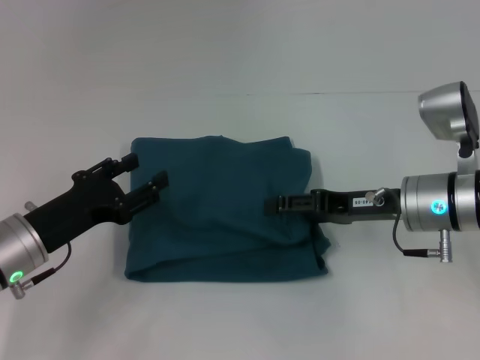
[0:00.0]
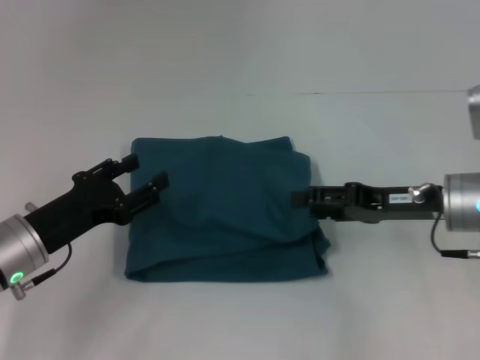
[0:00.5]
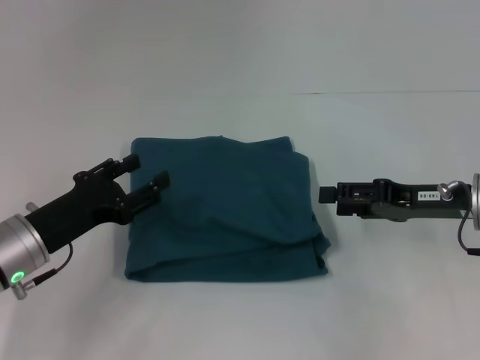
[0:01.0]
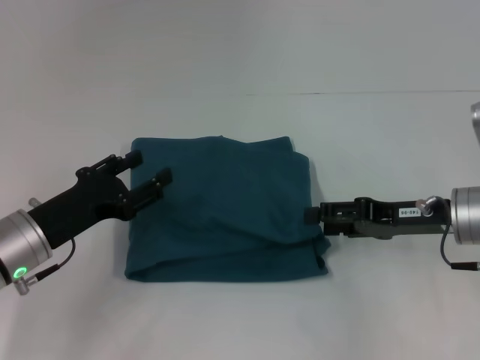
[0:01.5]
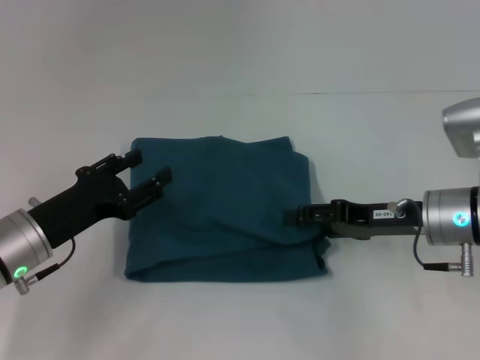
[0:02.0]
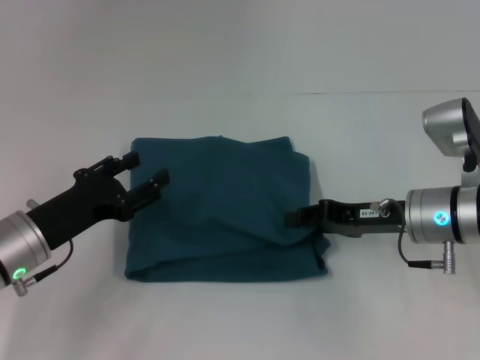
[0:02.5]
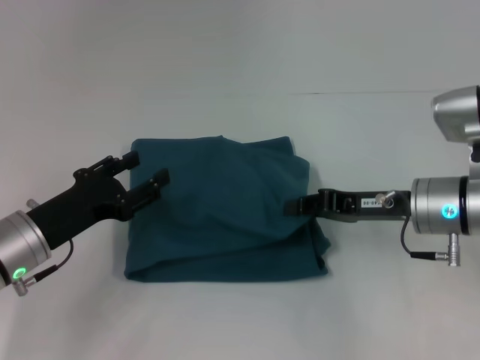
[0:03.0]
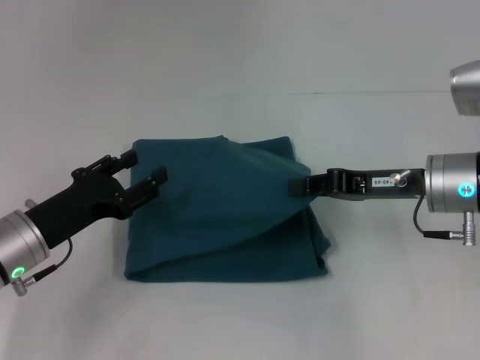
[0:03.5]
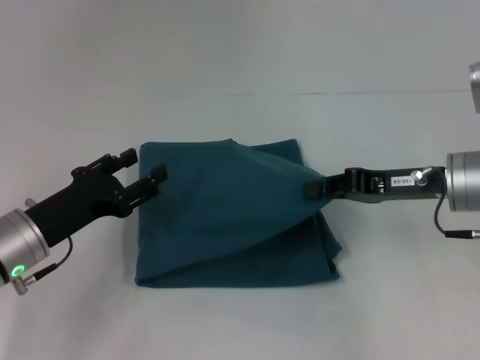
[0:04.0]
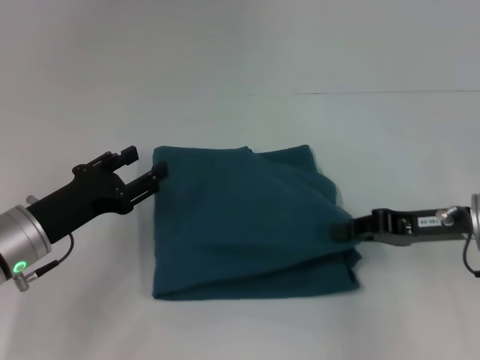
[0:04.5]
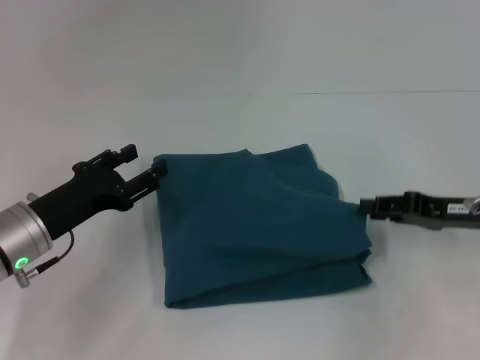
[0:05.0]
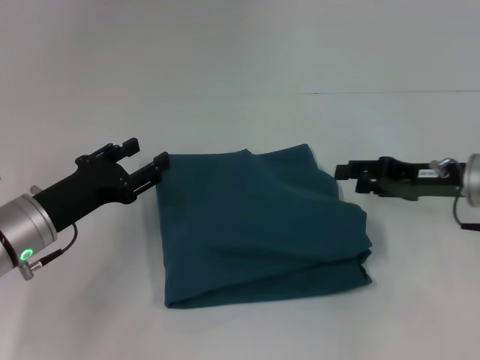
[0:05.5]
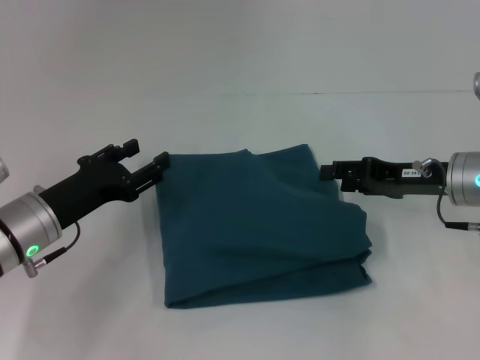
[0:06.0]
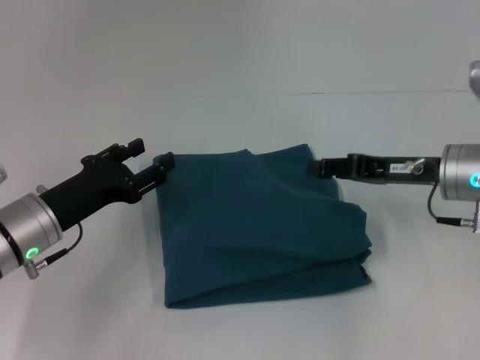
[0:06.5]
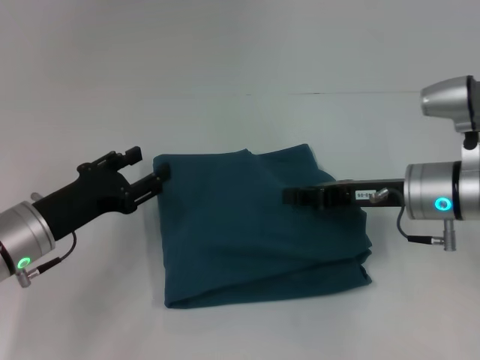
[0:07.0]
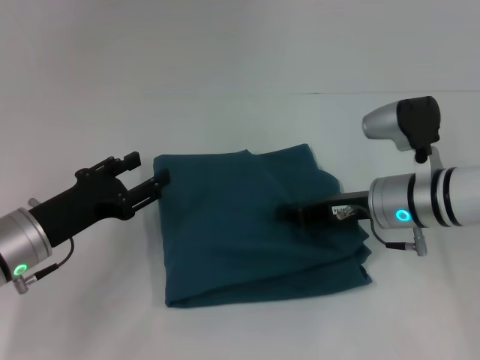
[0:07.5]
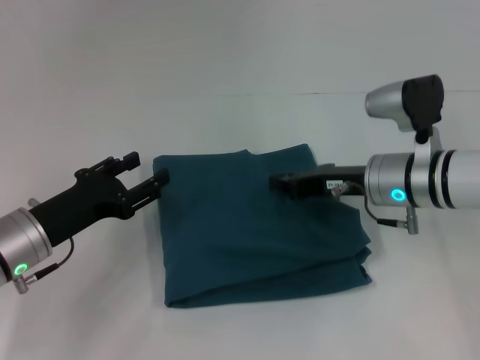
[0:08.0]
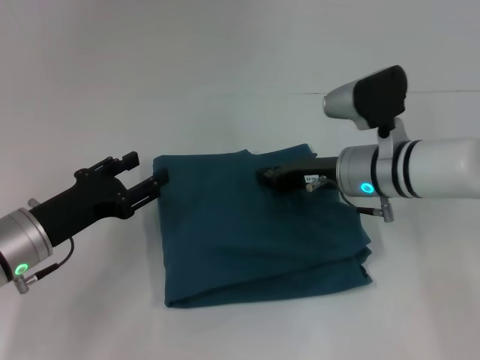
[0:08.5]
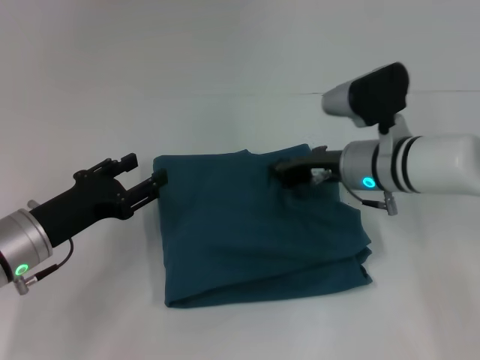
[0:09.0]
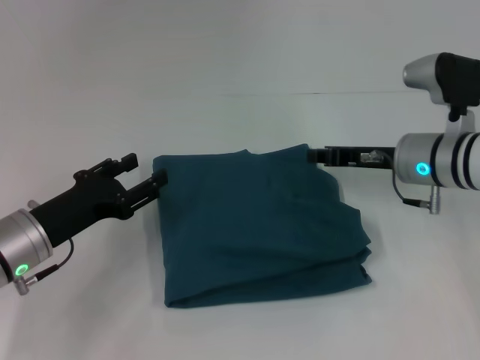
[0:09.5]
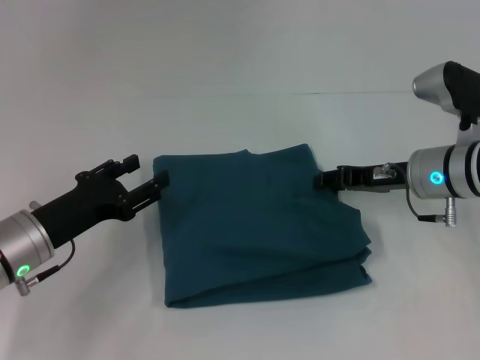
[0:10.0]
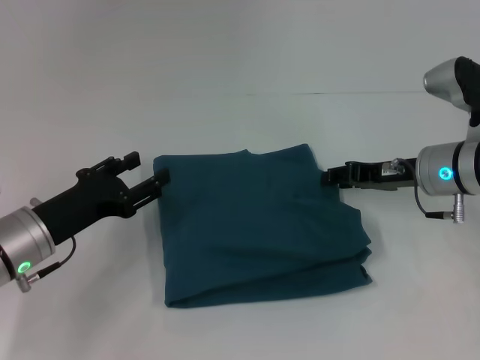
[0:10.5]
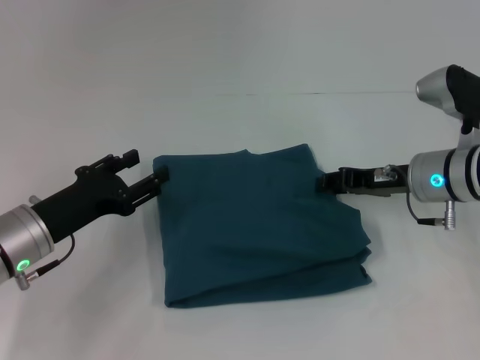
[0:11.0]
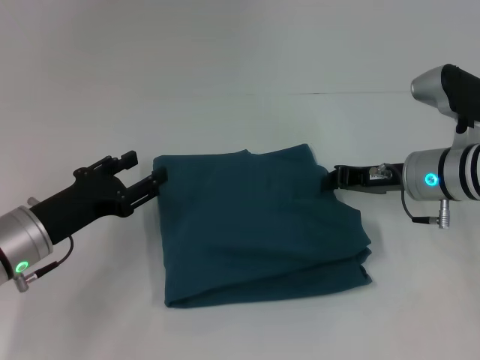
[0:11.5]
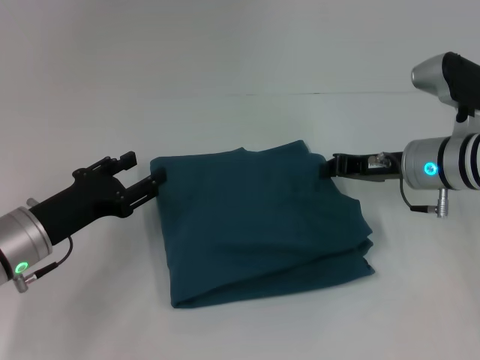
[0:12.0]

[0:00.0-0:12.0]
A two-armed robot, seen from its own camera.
0:02.0 to 0:04.0: The right gripper closes its fingers.
0:04.0 to 0:06.0: The right gripper opens.
0:06.0 to 0:08.0: The right gripper is displaced to the left by approximately 10 cm, and closes its fingers.
0:08.0 to 0:10.0: The right gripper opens its fingers.
0:10.0 to 0:12.0: The right gripper closes up.

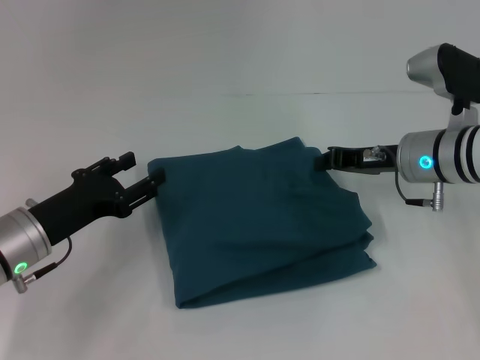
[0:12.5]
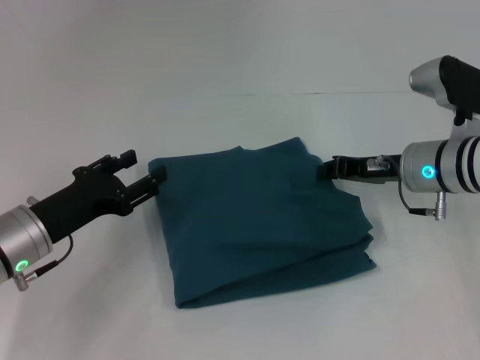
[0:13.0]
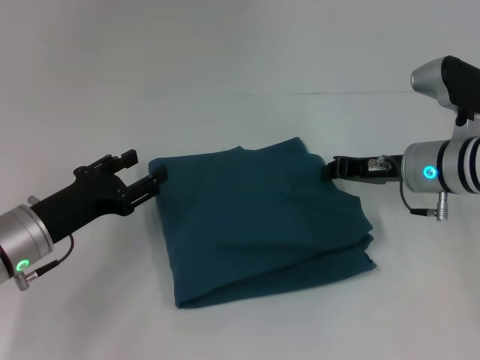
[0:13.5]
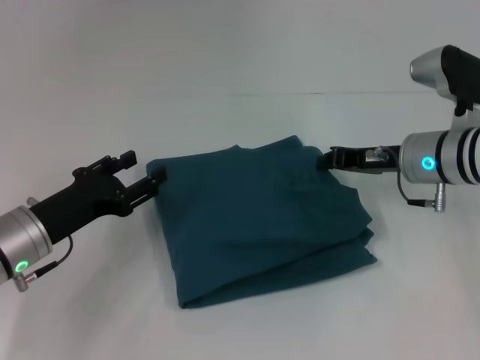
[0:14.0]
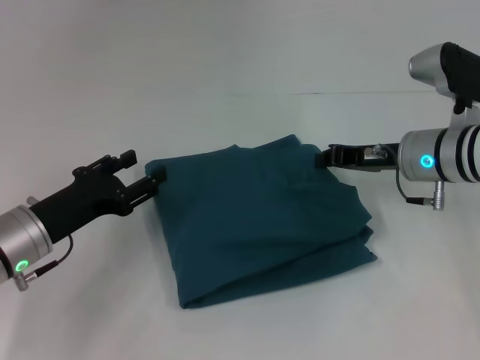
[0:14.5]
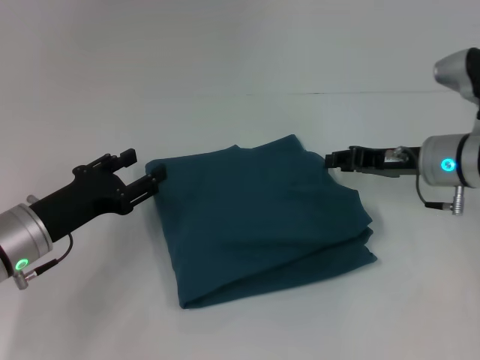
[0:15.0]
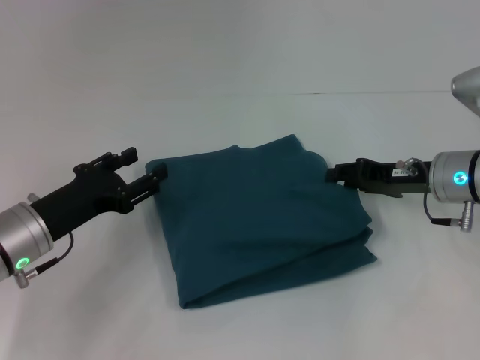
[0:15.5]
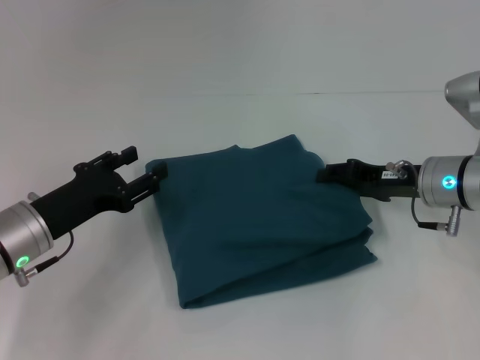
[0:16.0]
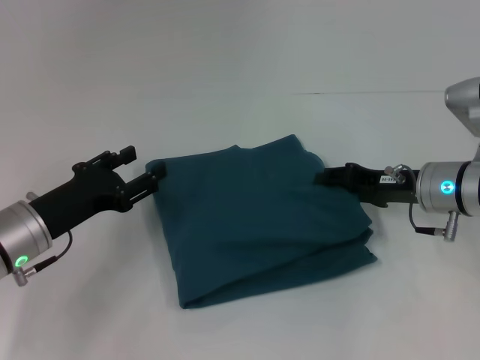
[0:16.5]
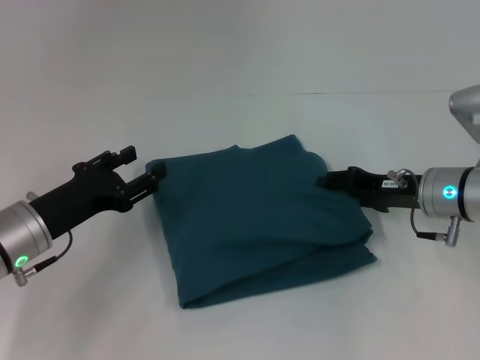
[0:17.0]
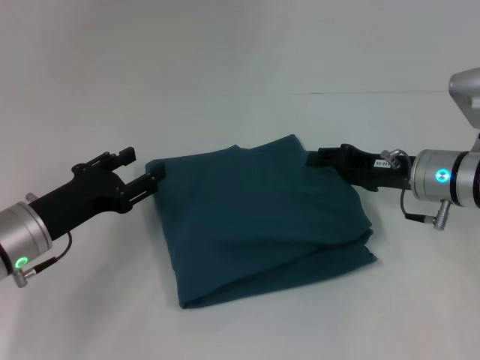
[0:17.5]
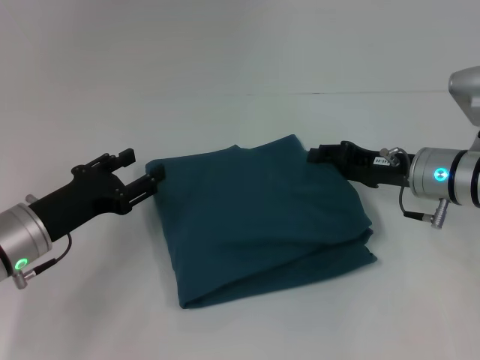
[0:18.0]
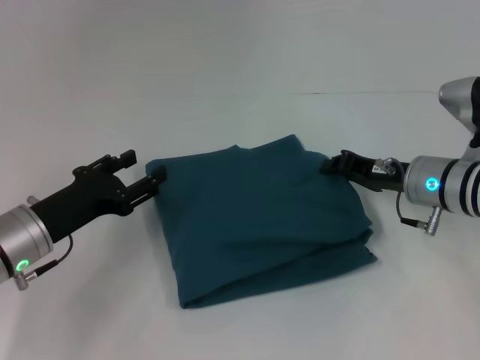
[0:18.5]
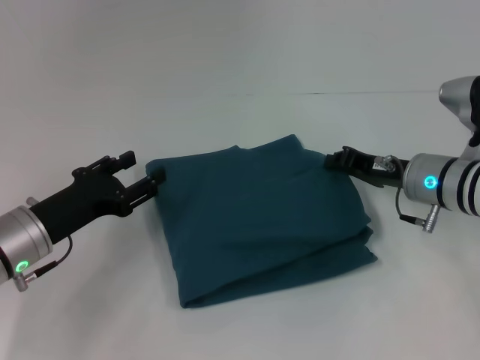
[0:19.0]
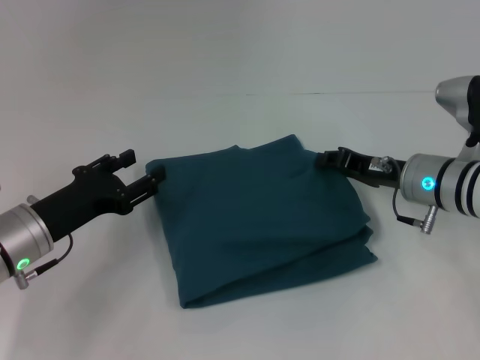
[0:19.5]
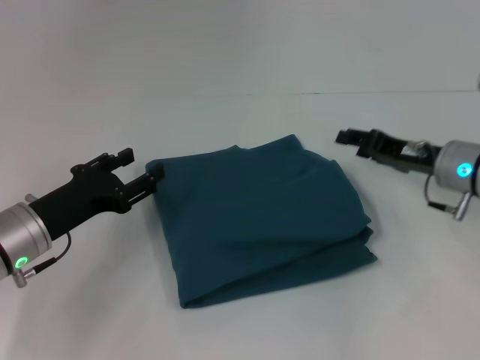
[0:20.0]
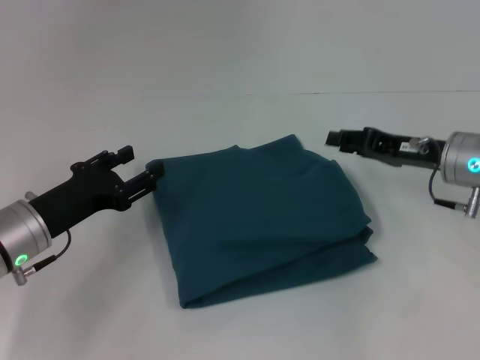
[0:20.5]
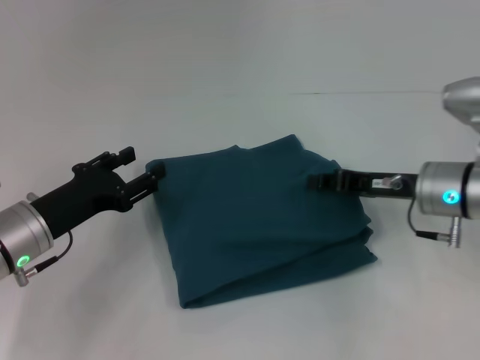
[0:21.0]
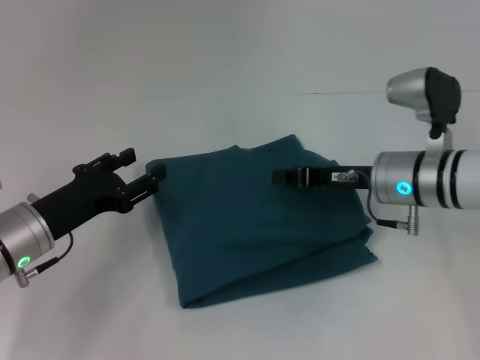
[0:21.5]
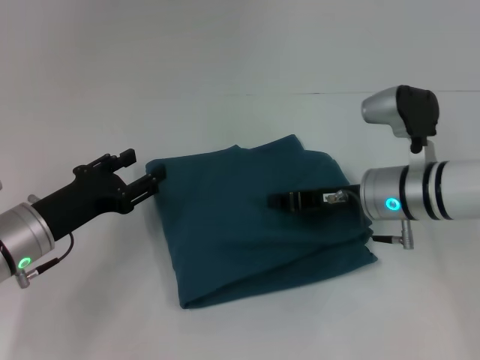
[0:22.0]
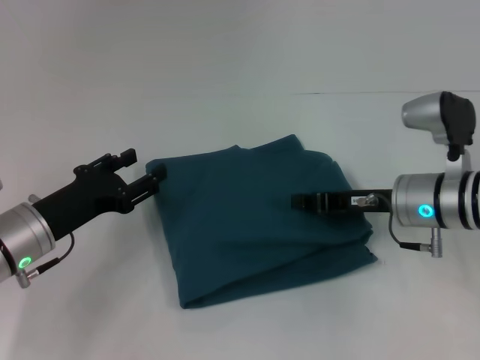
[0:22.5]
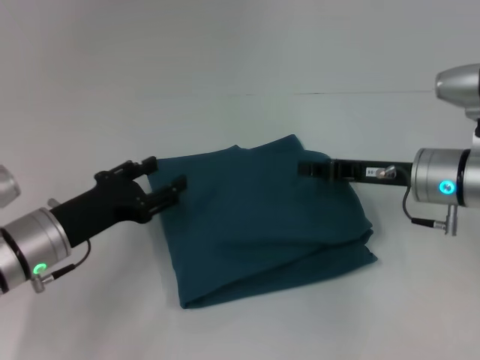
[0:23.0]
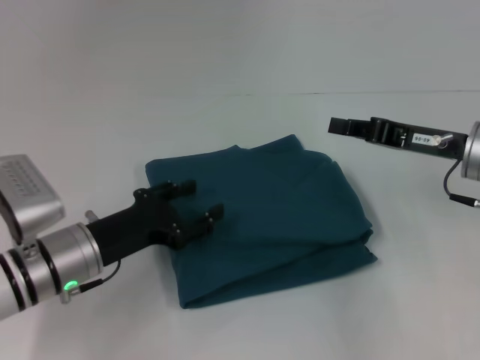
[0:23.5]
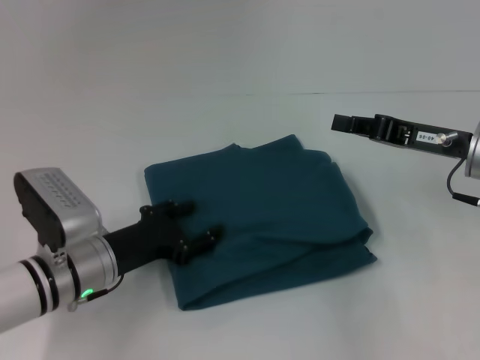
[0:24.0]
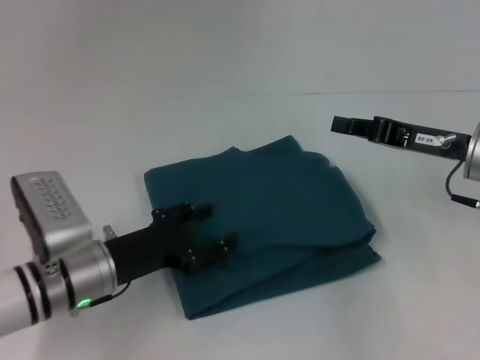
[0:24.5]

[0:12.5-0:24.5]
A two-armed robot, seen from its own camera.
0:12.5 to 0:14.5: Neither gripper changes place.
0:14.5 to 0:16.5: The right gripper opens.
0:16.5 to 0:18.5: The right gripper closes.
0:18.5 to 0:20.5: The right gripper opens up.
0:20.5 to 0:22.5: The right gripper changes place by about 5 cm, and closes.
0:22.5 to 0:24.5: The grippers both shift to the right by roughly 5 cm.

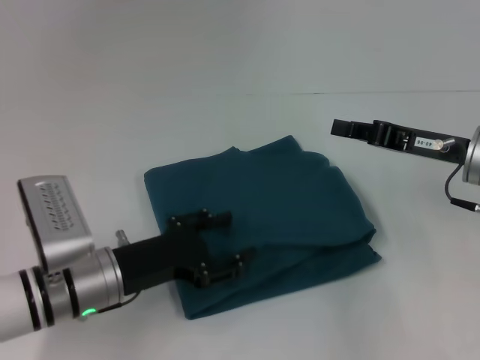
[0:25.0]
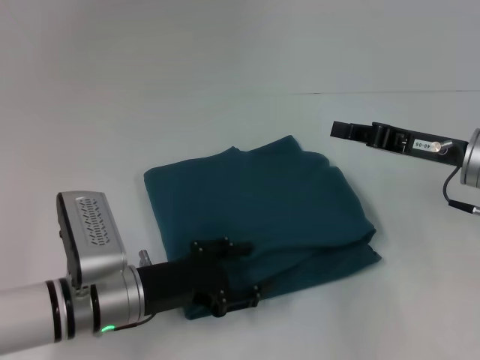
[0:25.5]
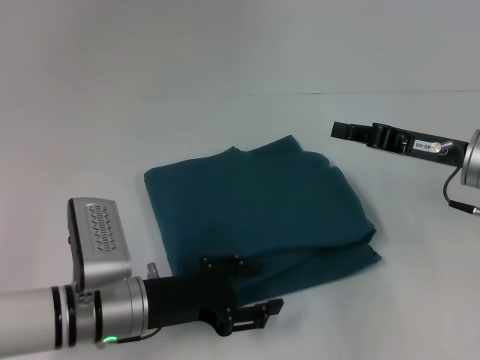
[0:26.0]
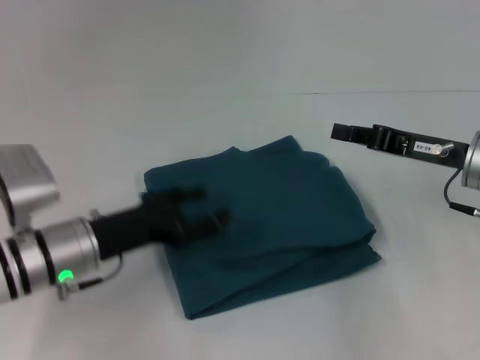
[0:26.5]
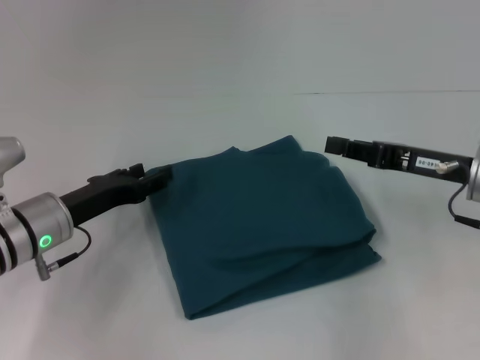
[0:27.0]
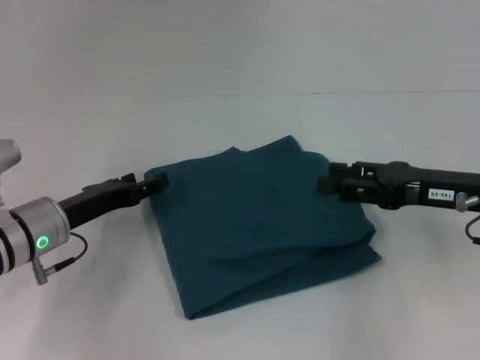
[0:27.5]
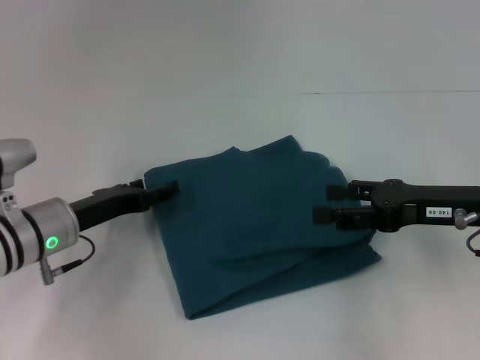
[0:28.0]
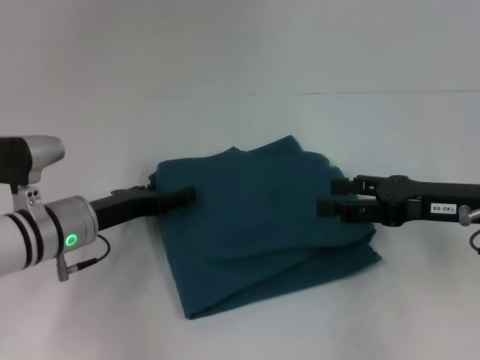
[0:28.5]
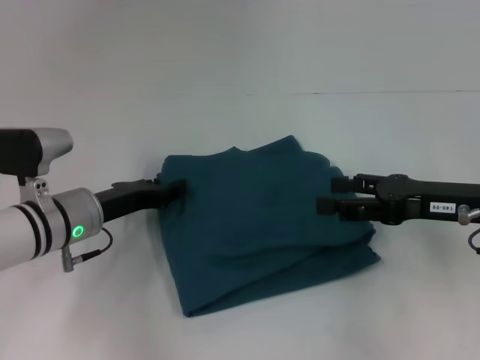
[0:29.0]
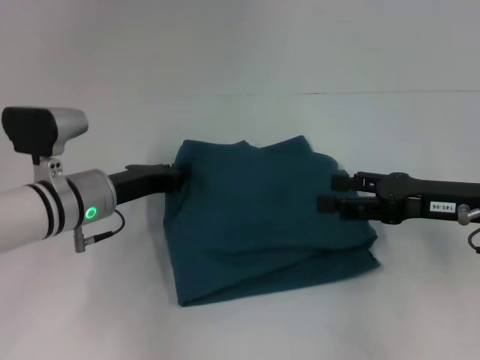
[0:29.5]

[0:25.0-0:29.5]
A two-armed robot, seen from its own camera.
0:25.0 to 0:27.0: The left gripper travels to the left by some 5 cm.
0:27.0 to 0:29.5: The right gripper opens up, while the left gripper changes place by approximately 5 cm, and closes its fingers.
